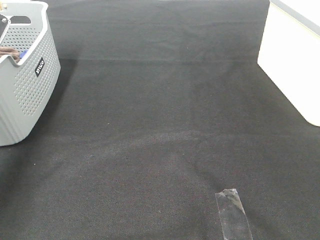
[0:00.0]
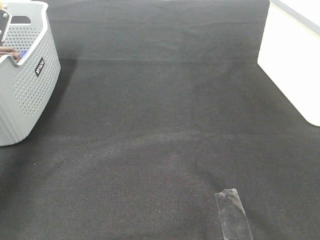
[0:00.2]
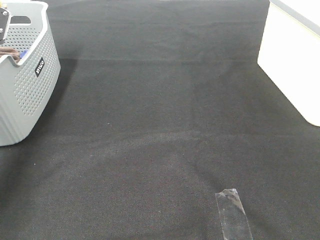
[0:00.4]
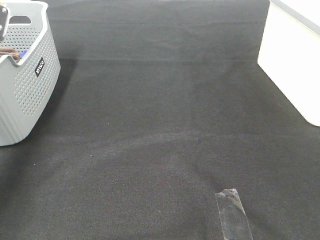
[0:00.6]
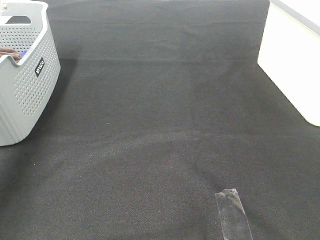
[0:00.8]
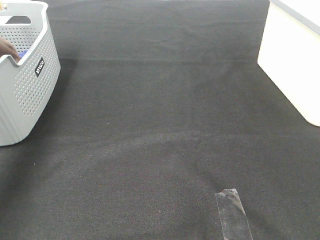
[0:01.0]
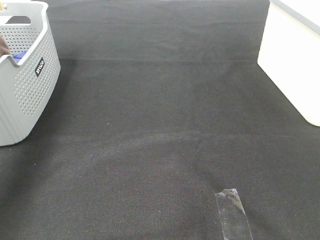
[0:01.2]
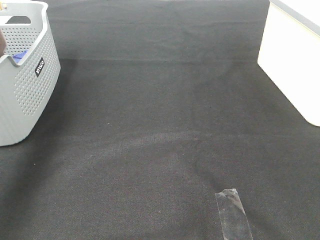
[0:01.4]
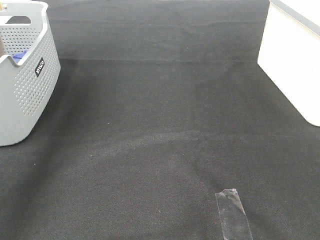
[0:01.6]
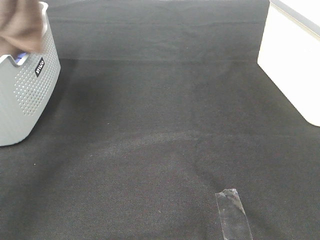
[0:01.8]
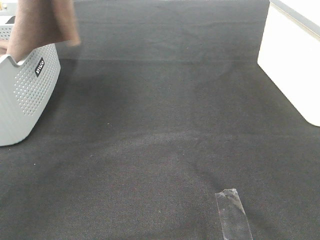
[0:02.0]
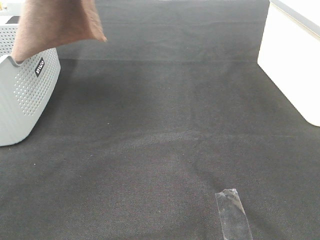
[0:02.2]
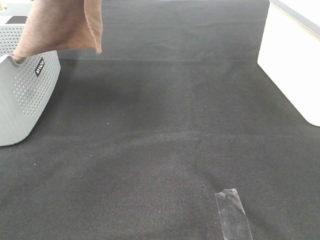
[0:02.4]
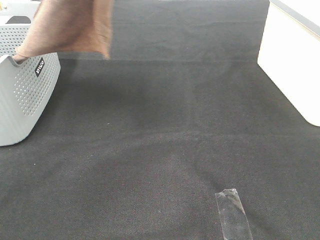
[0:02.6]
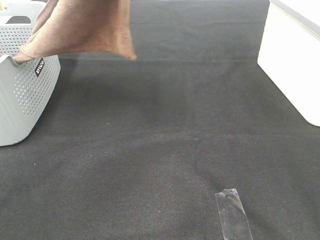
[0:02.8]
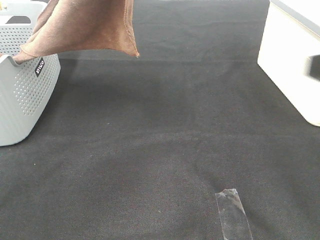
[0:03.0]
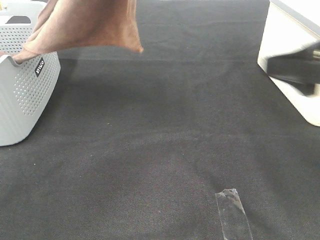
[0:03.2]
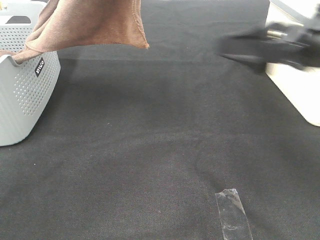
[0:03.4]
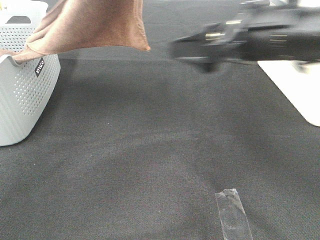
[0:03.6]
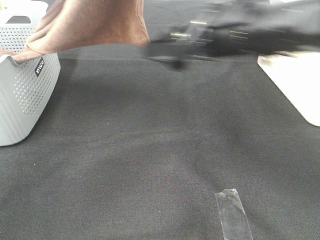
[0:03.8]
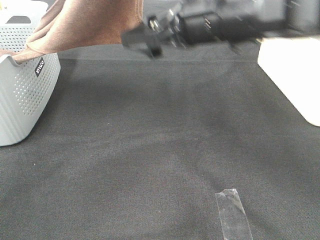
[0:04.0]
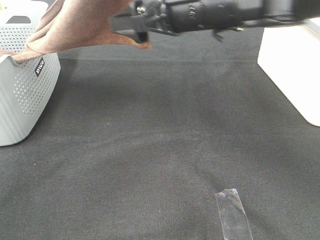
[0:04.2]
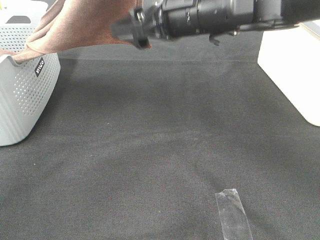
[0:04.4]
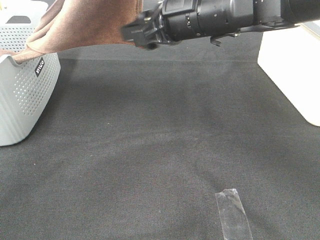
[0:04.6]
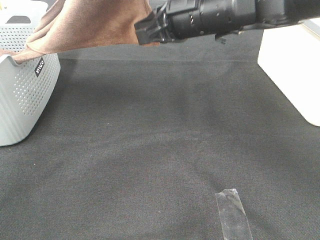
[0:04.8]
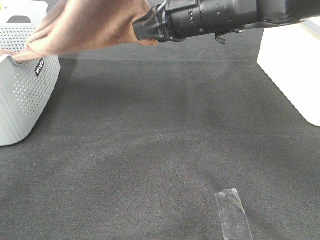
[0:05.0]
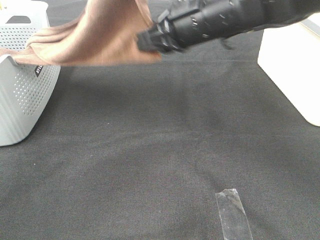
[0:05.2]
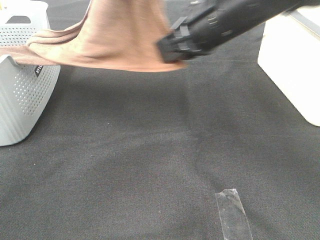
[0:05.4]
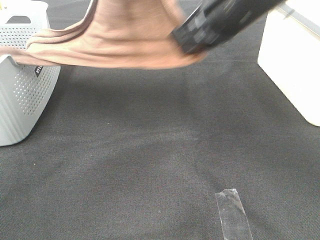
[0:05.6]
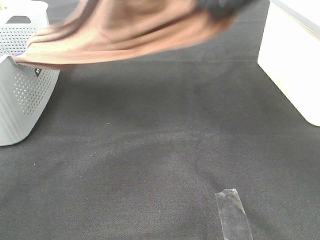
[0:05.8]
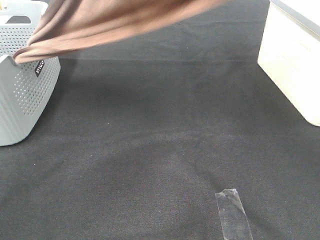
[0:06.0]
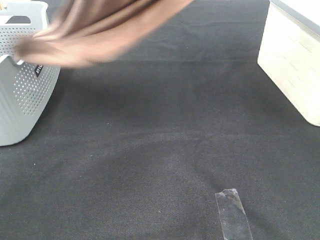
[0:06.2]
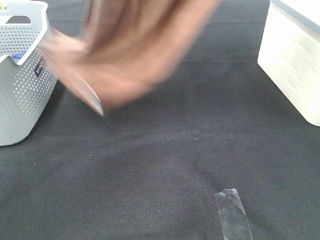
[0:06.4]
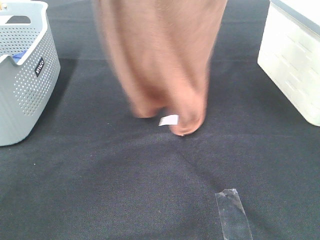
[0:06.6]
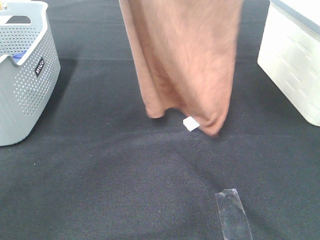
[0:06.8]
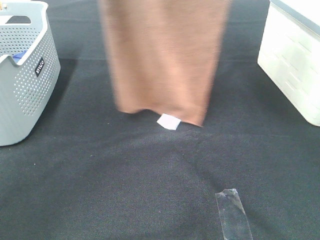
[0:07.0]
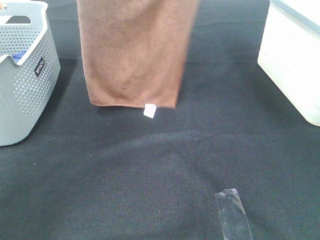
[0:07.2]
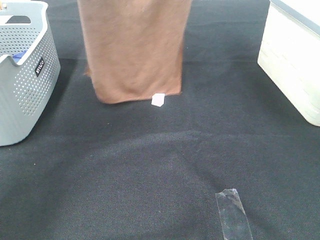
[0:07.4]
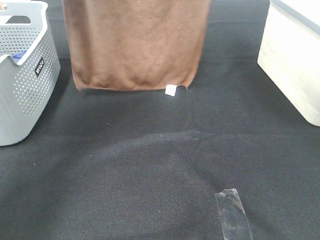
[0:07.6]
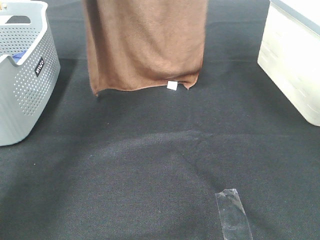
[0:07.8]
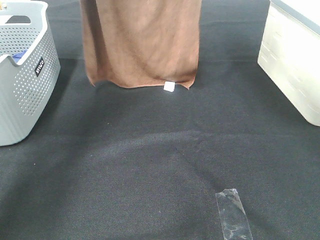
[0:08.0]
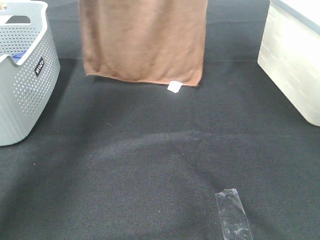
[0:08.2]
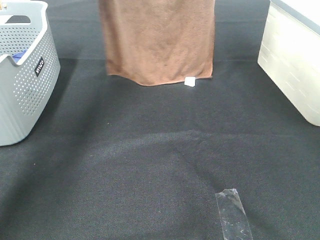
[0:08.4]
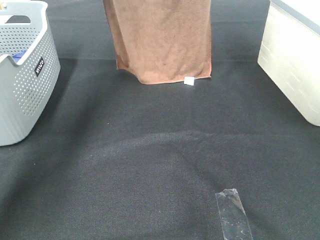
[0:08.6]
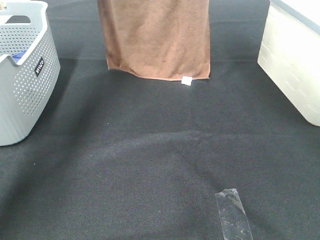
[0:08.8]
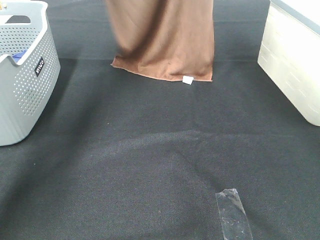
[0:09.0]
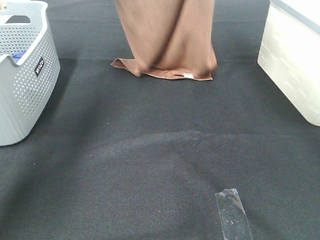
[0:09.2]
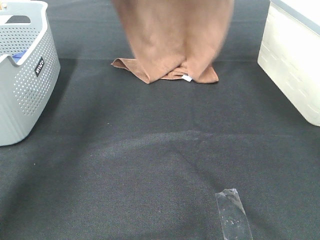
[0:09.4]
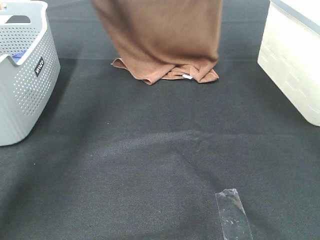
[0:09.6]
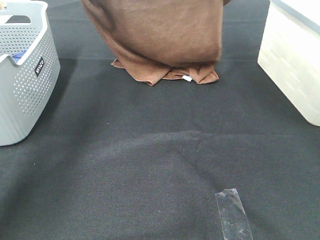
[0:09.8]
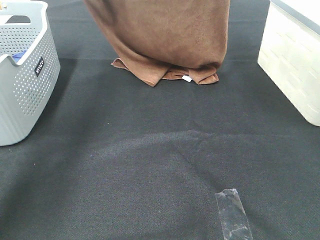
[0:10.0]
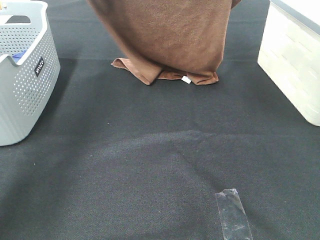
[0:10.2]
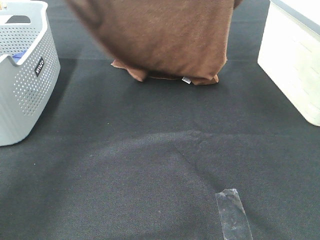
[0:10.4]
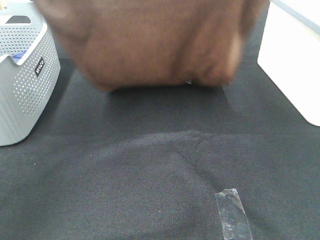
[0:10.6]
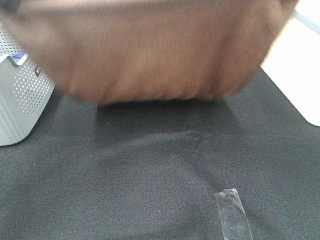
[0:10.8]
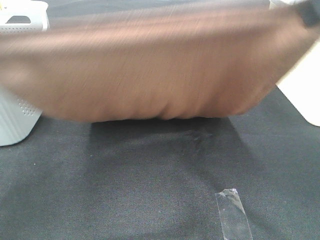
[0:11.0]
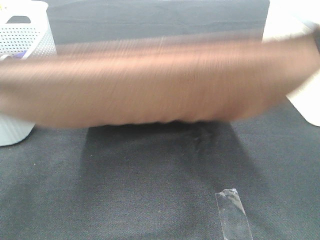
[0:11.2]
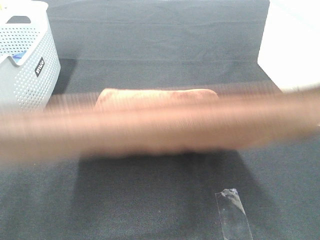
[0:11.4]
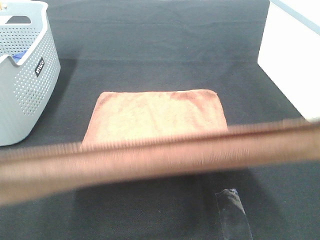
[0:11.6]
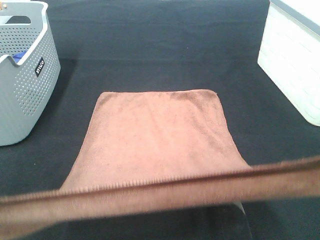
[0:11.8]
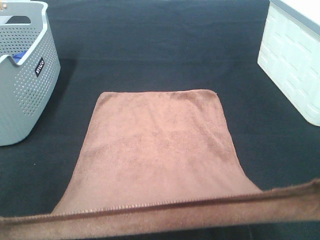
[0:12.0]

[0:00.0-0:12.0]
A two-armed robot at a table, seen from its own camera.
Task of the whole recording: Remove the towel and place it.
Step, 1.6 to 5.2 s: Right hand: grab a corner of the brown towel and straighten it.
Step, 5.4 to 10.2 s: Left hand: spread the brown towel flat on the table.
Step, 5.4 to 10.2 s: Right hand: spread the brown towel flat on the table.
0.0 to 1.6 s: The left gripper shifts about 25 cm upward and to the right.
1.6 to 3.0 s: The left gripper is displaced to the right by roughly 15 cm. The right gripper travels forward by roughly 15 cm.
3.0 to 4.4 s: The right gripper heads forward and to the left, covering approximately 30 cm.
4.4 to 6.0 s: The right gripper travels upward and to the right by some 20 cm, and closes up.
6.0 to 7.6 s: The left gripper goes roughly 10 cm to the left and forward, while the right gripper heads forward and upward, covering some 10 cm.
7.6 to 9.0 s: The left gripper shifts roughly 15 cm forward and downward, while the right gripper travels forward by roughly 10 cm.
9.0 to 10.4 s: Both grippers move backward, about 15 cm.
10.4 to 12.0 s: The two grippers go roughly 30 cm backward and downward.

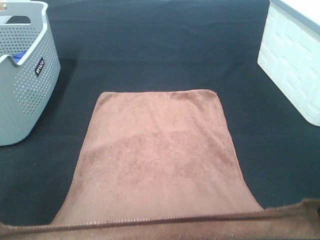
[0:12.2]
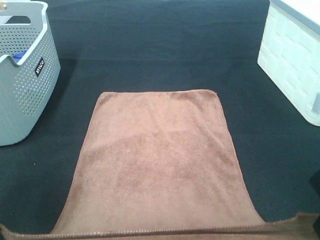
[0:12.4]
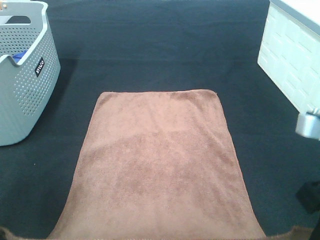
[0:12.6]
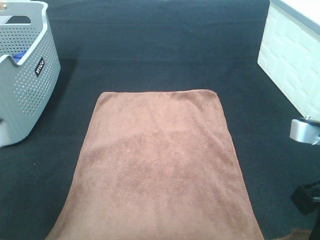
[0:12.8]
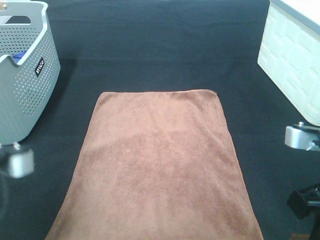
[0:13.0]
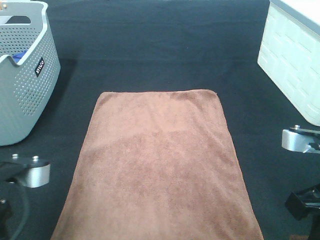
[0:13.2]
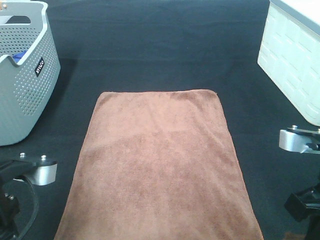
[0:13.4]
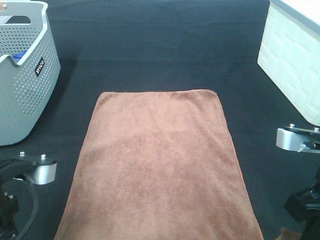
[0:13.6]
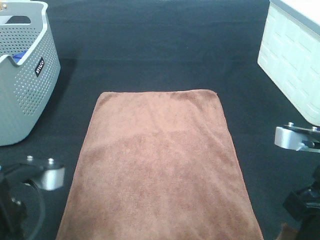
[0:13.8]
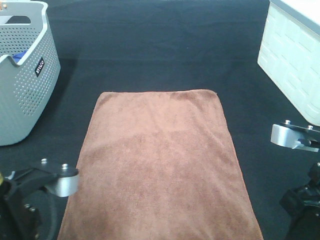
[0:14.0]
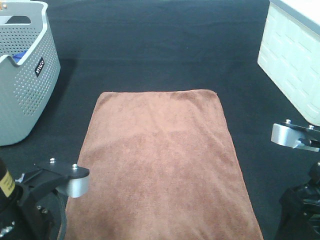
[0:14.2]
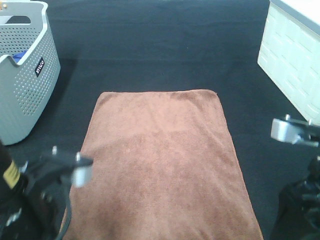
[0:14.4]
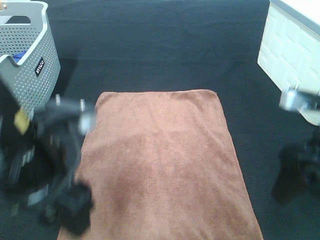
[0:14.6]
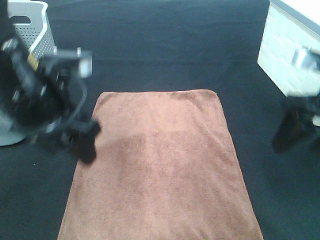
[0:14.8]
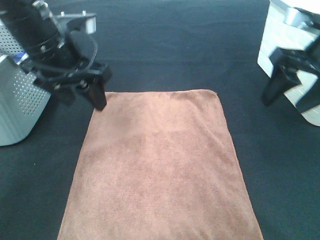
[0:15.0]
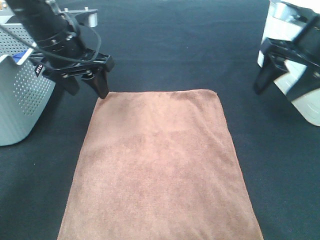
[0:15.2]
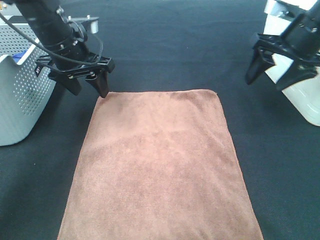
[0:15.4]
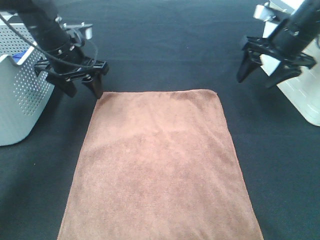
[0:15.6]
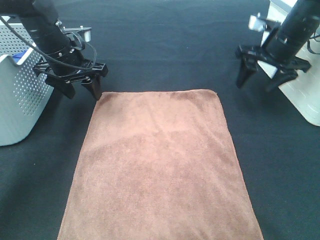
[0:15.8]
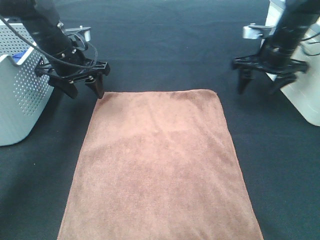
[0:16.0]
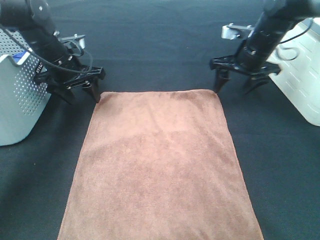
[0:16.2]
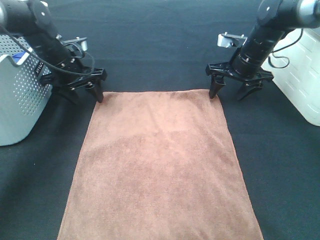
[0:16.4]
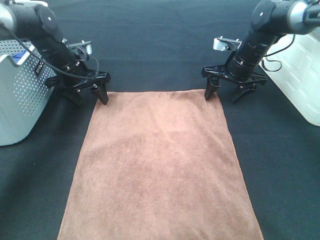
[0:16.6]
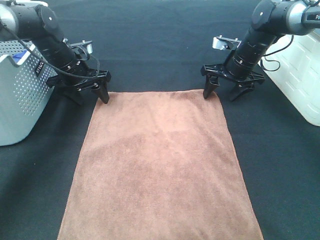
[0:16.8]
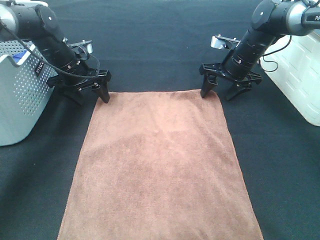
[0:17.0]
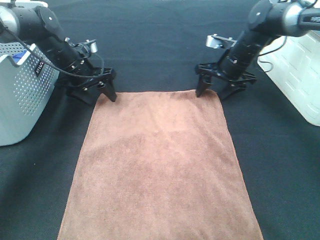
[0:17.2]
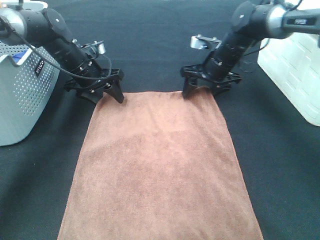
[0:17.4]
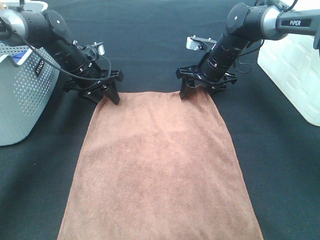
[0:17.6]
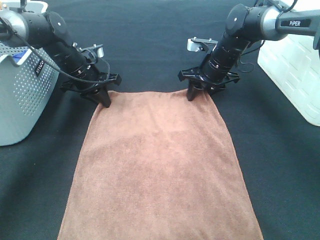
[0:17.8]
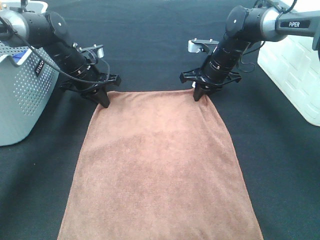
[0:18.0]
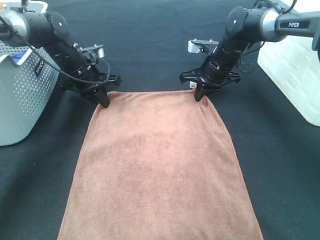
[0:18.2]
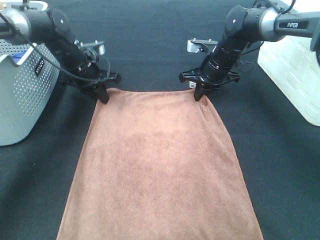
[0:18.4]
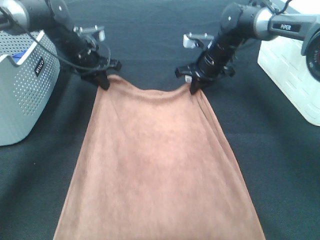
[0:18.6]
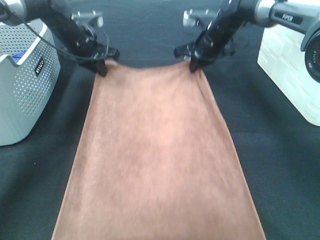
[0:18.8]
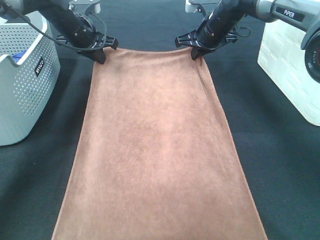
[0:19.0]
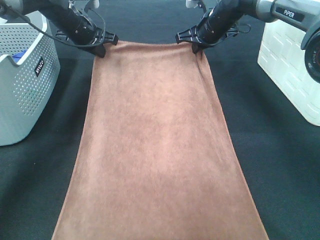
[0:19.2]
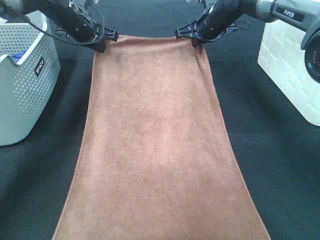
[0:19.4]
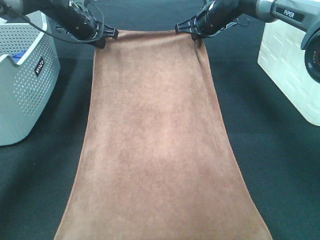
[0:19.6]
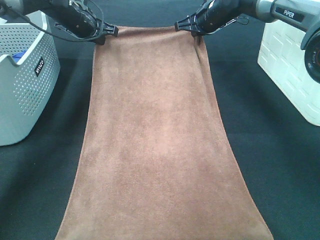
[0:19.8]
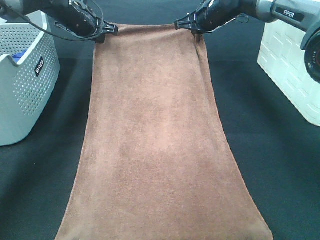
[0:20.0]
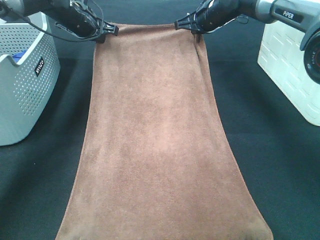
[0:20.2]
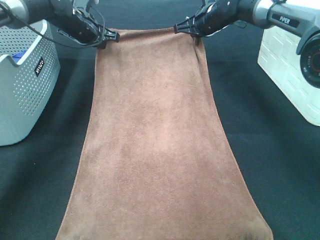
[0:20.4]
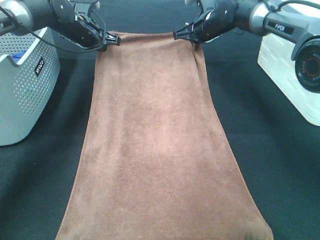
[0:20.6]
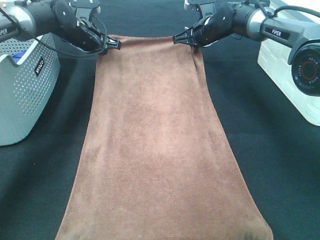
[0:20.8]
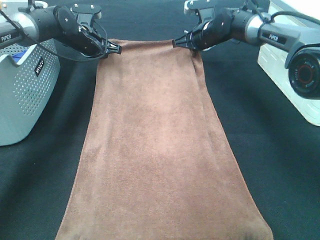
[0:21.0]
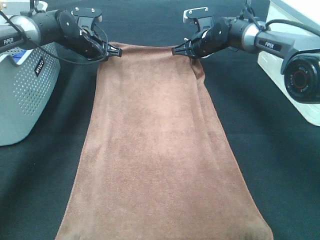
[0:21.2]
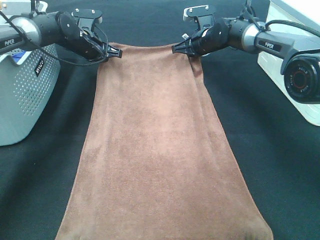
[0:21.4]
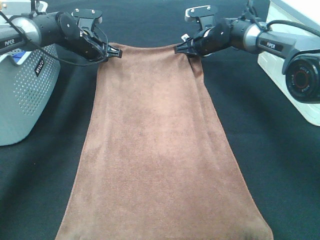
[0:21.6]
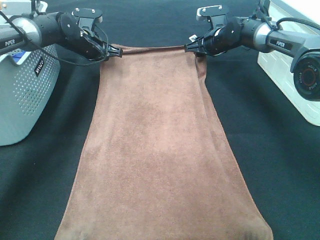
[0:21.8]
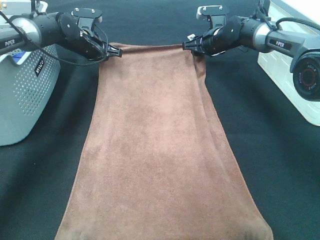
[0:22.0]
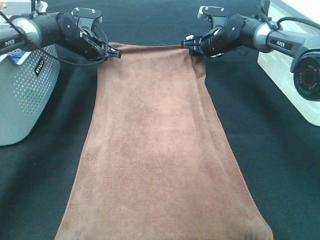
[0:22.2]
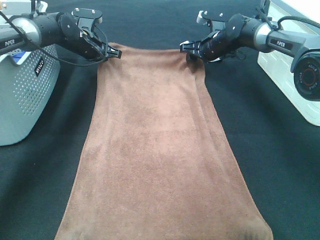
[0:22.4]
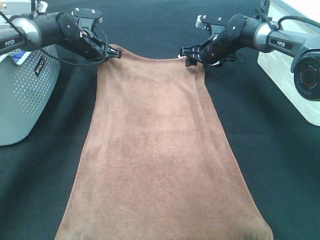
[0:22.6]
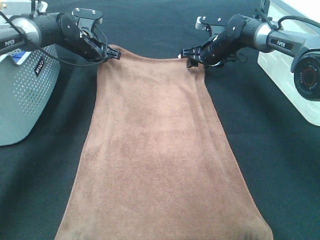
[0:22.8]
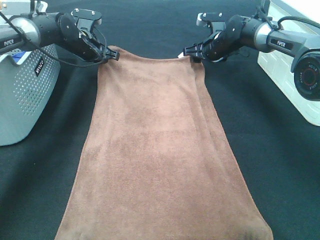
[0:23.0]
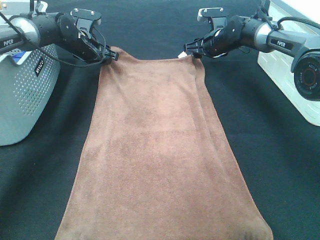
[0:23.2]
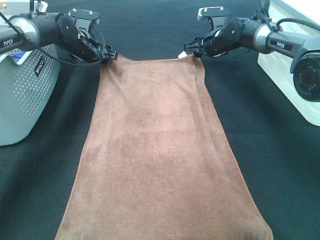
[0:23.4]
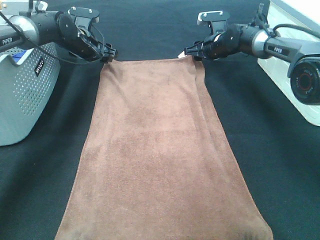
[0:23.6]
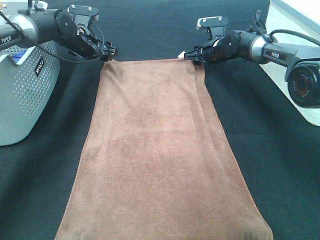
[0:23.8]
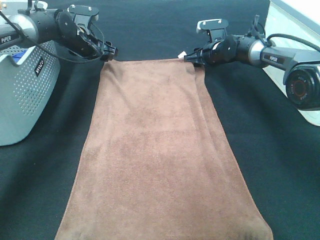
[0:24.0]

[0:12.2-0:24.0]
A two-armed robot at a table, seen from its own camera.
Task of the whole recording: Remove the towel and place it.
Step, 12.2 to 17.8 s: Left hand:adjust the brown towel.
Step, 12.2 to 19.0 s: Right hand:adjust the brown towel.
12.2 to 13.6 s: The right gripper shifts about 5 cm downward, while the left gripper goes some 10 cm downward and to the right.
13.6 to 15.2 s: Both grippers move forward, approximately 25 cm. The right gripper opens its fingers; the left gripper opens.
15.2 to 16.6 s: The left gripper moves downward and forward, roughly 15 cm. The right gripper heads forward and downward, covering some 20 cm.
16.6 to 18.2 s: The left gripper closes up; the right gripper goes some 5 cm to the left, and closes its fingers.
18.2 to 19.6 s: The two grippers go some 10 cm upward and forward.
19.6 to 21.0 s: Both grippers travel together downward, approximately 5 cm.
21.0 to 22.6 s: The right gripper opens its fingers.
22.6 to 24.0 s: The left gripper opens.
